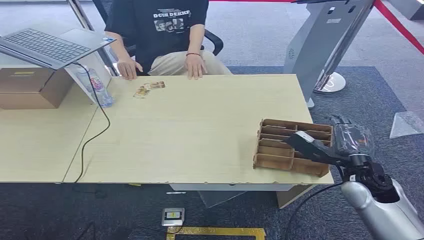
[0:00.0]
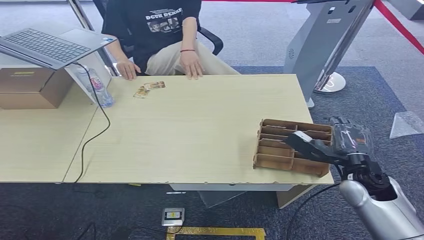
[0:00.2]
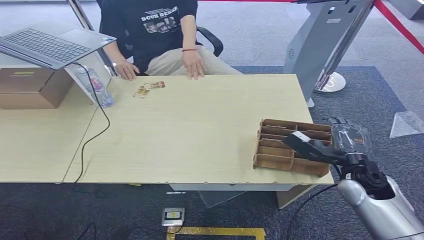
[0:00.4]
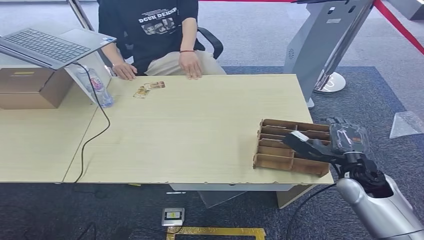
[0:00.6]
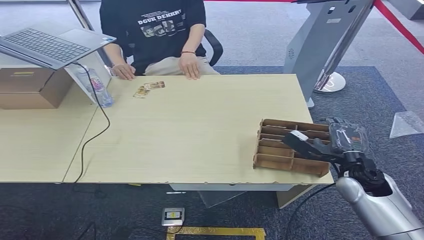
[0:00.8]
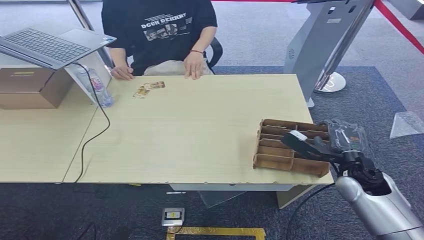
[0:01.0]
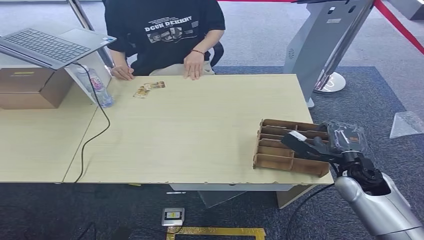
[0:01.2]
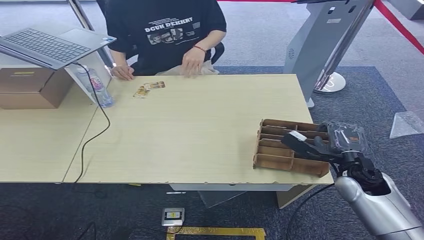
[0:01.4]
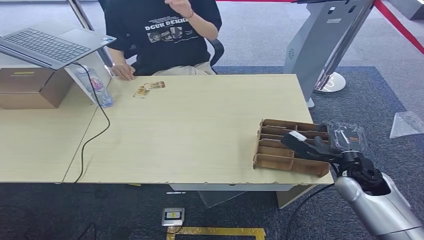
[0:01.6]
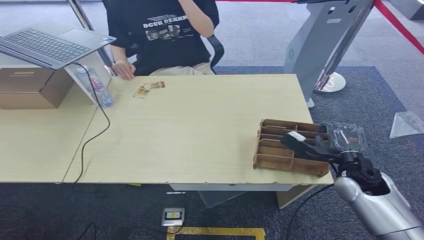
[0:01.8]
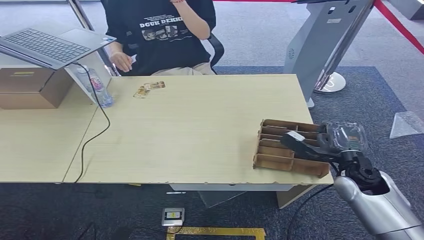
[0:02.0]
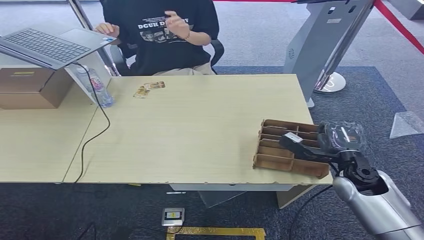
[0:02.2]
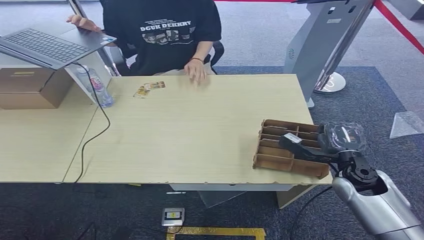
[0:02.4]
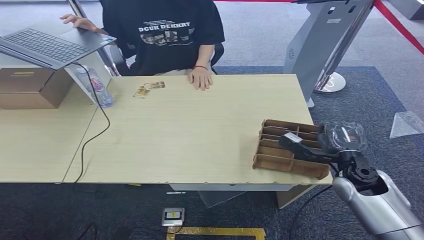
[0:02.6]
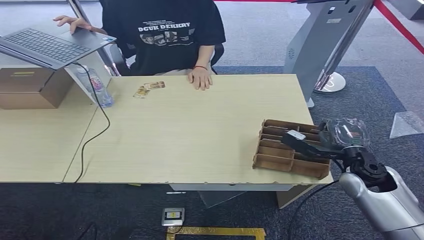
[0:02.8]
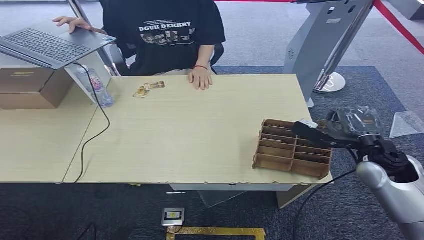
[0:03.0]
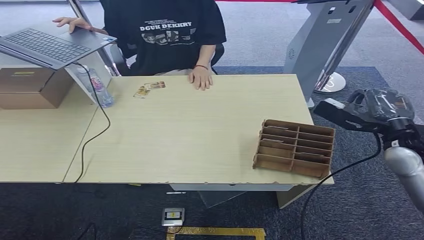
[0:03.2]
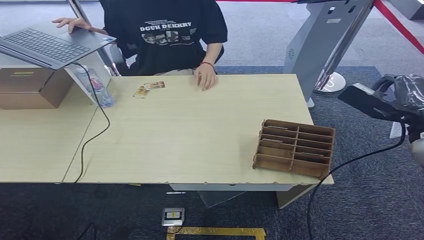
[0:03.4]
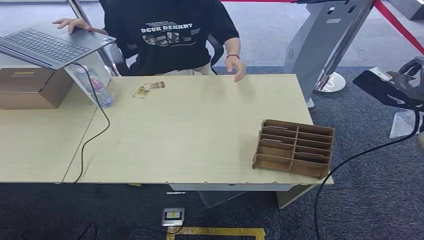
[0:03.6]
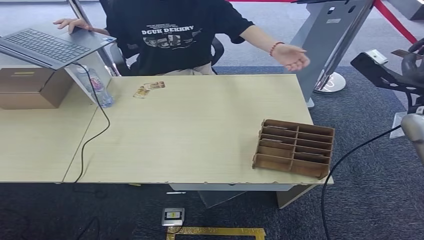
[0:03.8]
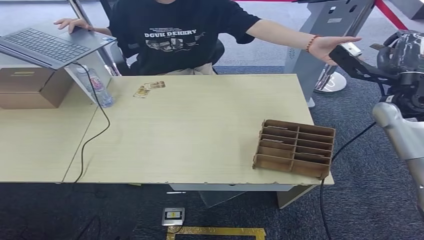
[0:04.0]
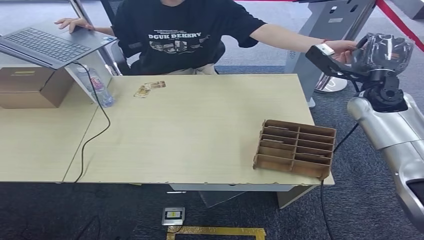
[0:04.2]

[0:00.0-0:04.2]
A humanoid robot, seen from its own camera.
Step, 0:00.0 to 0:03.2: Pick up the room card from the card holder.
Step, 0:03.6 to 0:04.2: Hand the room card to the target.
0:01.4 to 0:02.8: The hands stay close to where they were, moving slightly.

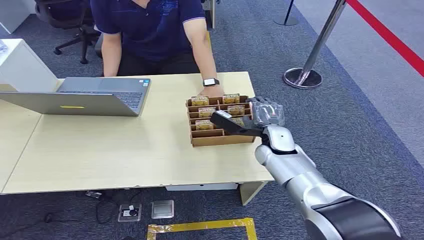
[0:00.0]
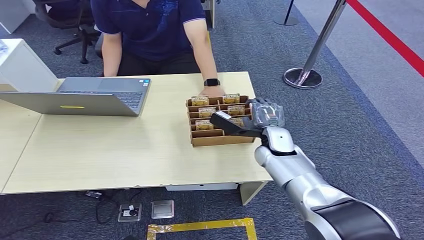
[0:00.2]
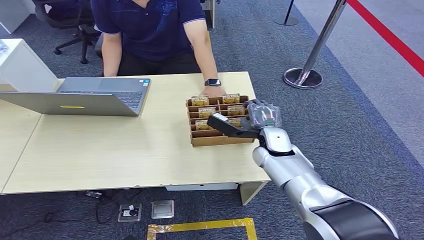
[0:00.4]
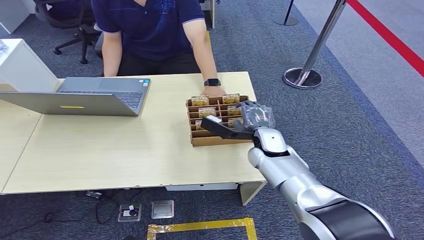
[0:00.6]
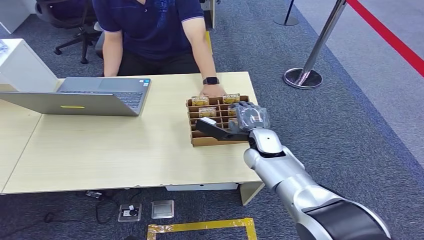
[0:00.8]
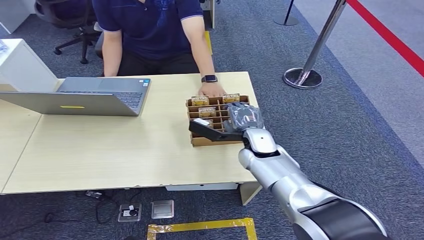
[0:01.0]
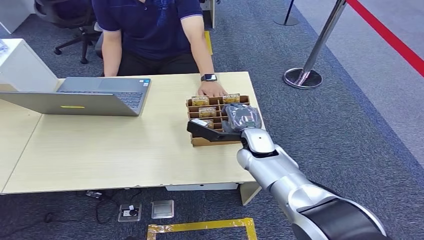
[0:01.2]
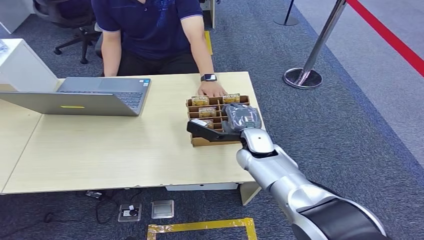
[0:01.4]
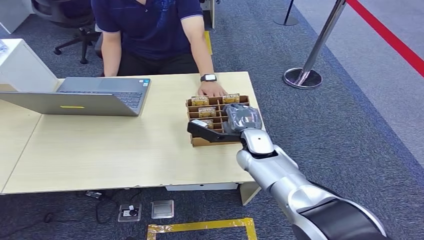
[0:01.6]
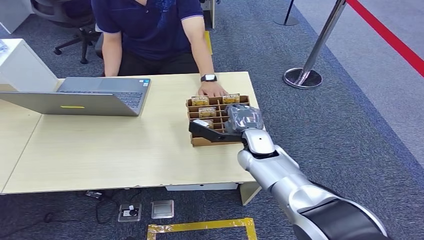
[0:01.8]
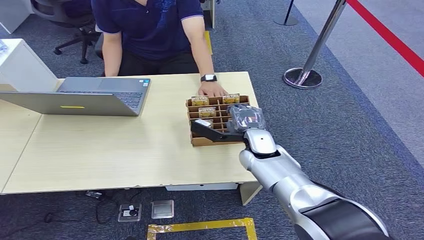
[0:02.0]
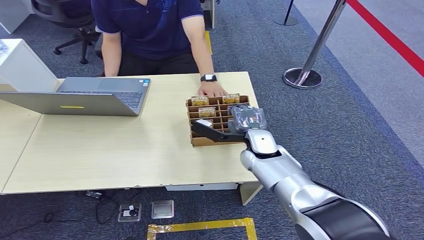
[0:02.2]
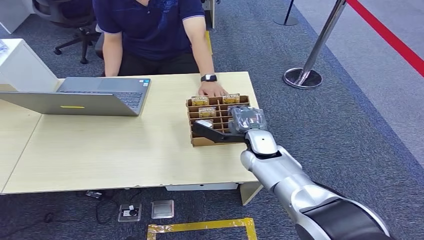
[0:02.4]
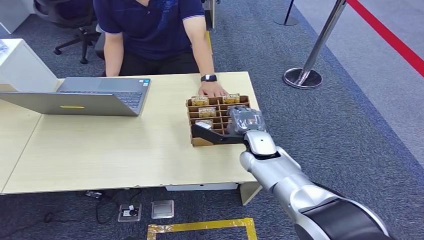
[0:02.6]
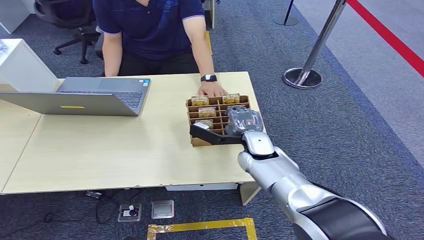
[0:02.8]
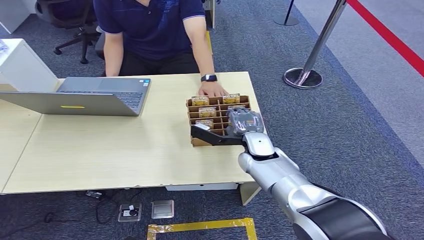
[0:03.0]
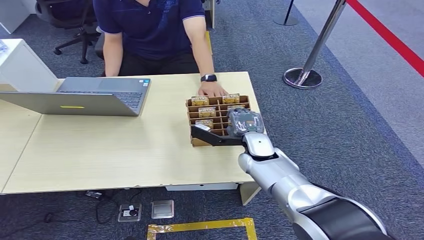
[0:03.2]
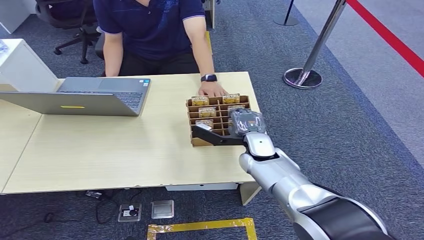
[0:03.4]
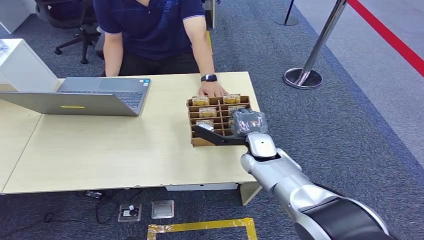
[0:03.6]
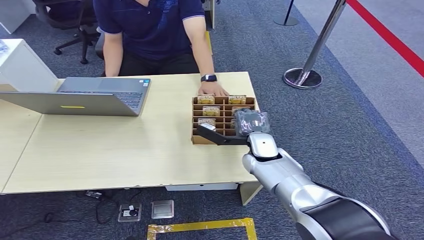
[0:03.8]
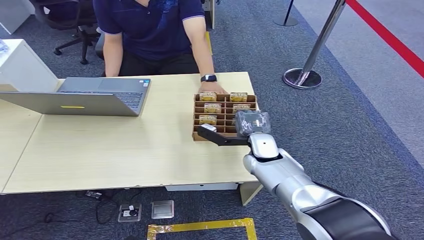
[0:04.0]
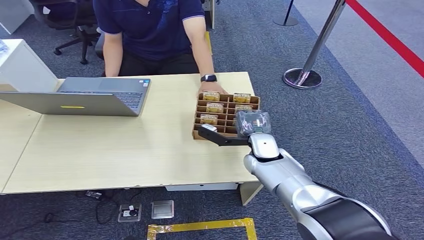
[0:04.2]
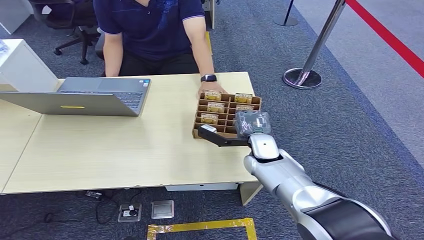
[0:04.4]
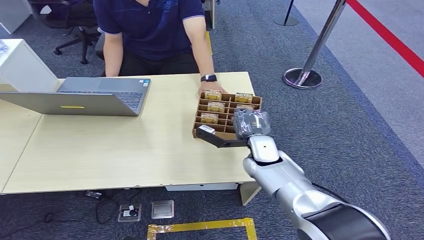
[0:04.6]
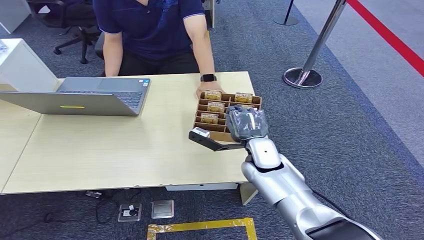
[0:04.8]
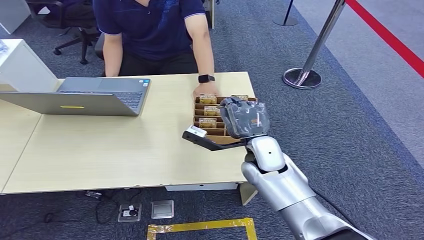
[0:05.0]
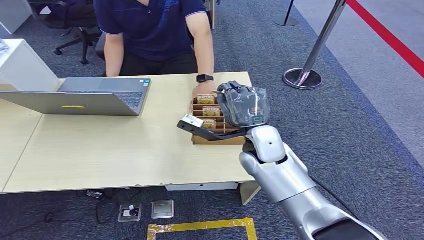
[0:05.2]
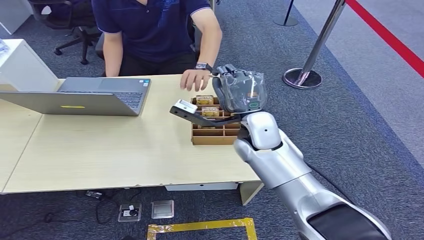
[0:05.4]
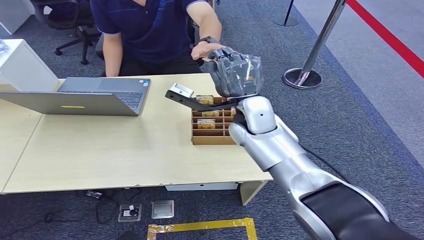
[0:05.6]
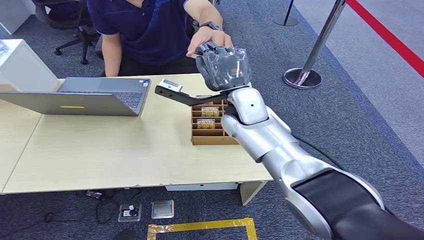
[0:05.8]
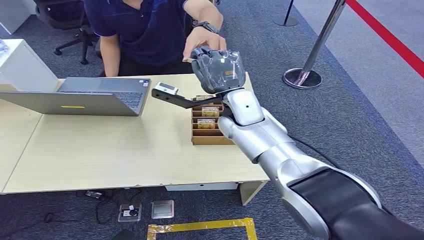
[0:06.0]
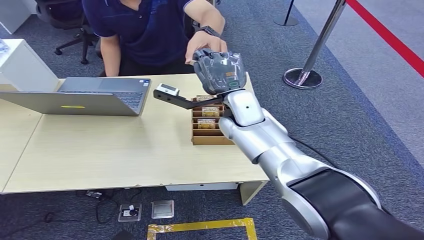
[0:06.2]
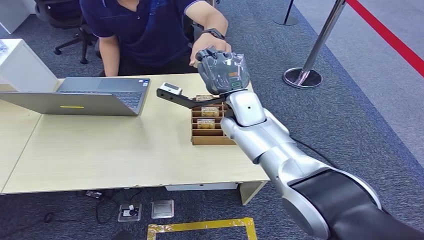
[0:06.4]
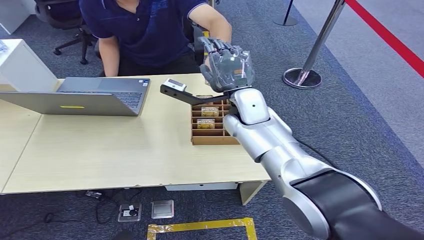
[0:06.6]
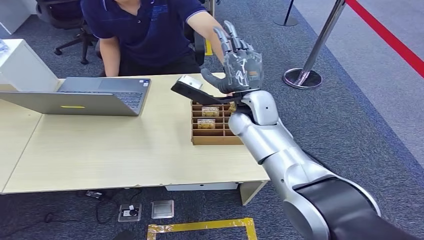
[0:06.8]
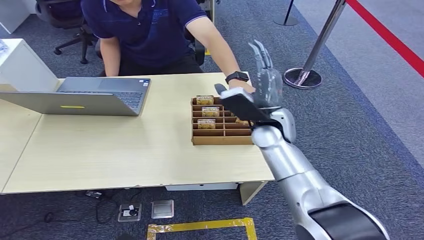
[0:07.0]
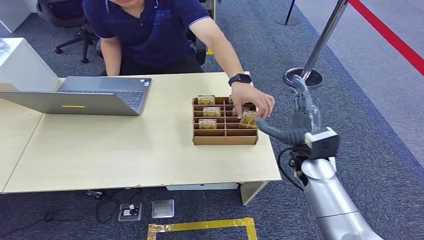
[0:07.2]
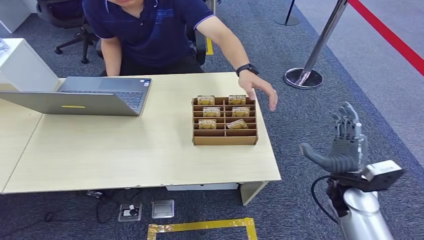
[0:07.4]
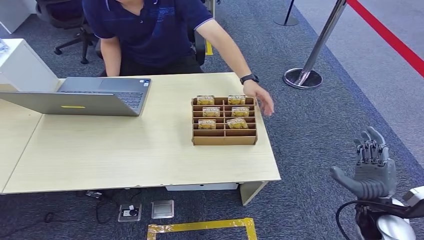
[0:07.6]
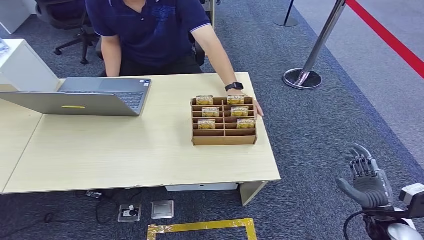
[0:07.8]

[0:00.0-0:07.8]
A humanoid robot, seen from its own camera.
Step, 0:00.0 to 0:05.0: Pick up the room card from the card holder.
Step, 0:05.2 to 0:07.8: Hand the room card to the target.
0:01.6 to 0:04.6: There are only small adjustments of the hands.
0:04.6 to 0:06.2: The right hand travels upward by some 15 cm.
0:06.2 to 0:07.8: The right hand goes approximately 50 cm to the right, backward and downward.
